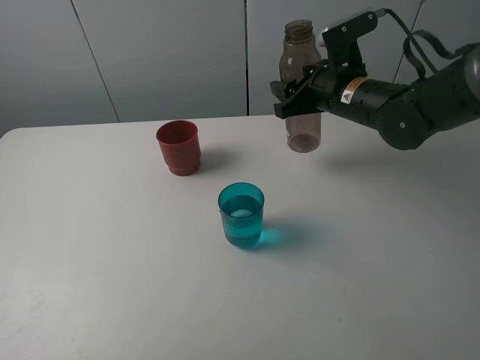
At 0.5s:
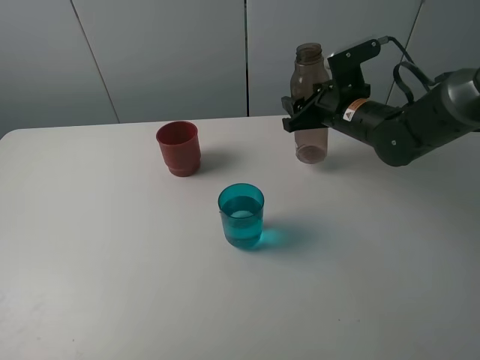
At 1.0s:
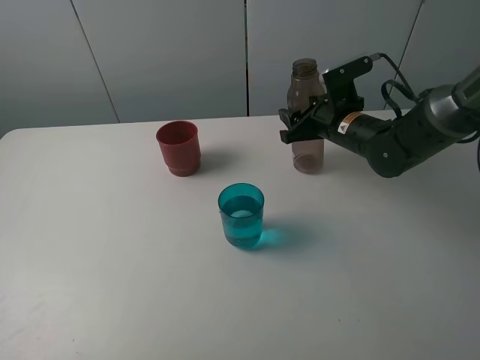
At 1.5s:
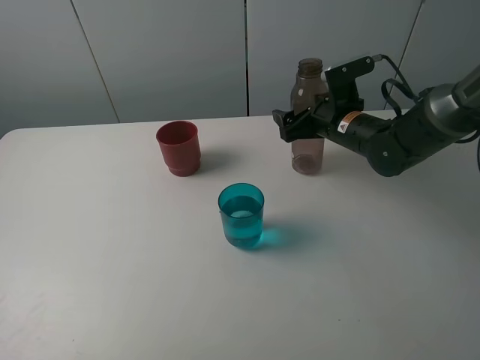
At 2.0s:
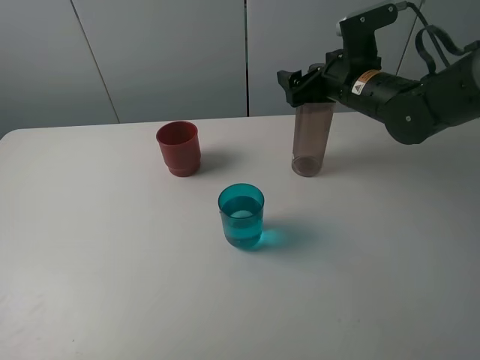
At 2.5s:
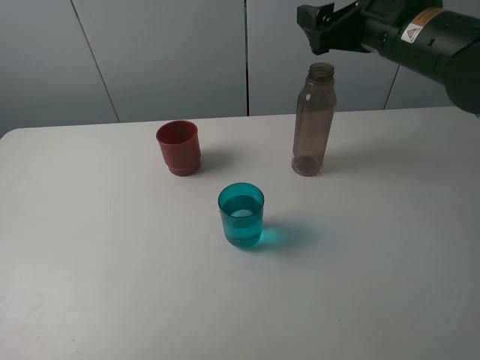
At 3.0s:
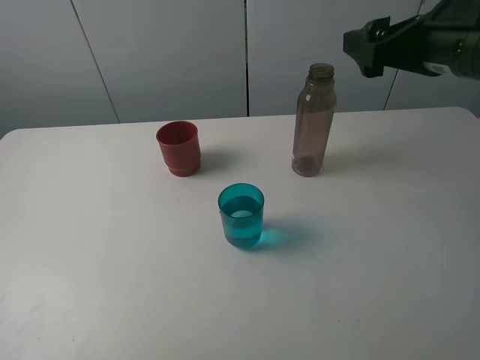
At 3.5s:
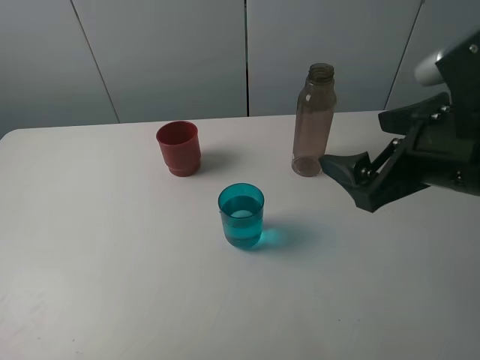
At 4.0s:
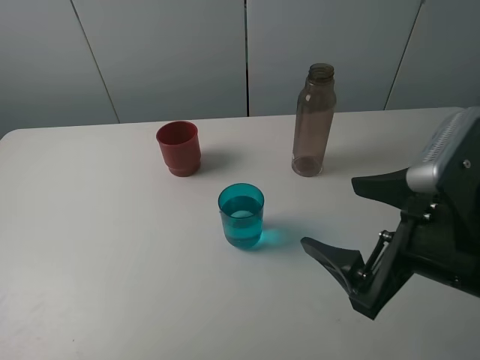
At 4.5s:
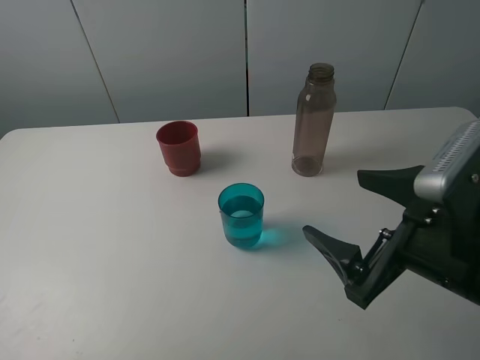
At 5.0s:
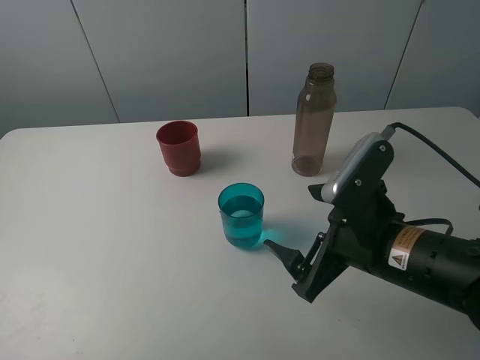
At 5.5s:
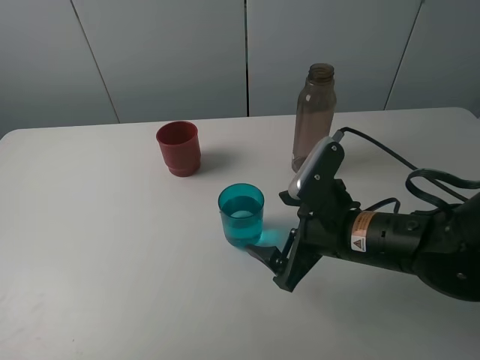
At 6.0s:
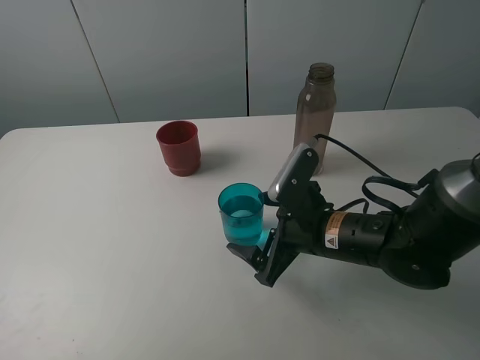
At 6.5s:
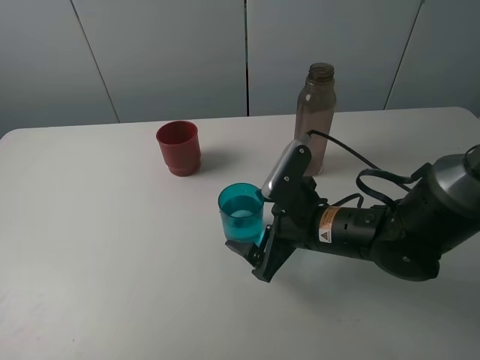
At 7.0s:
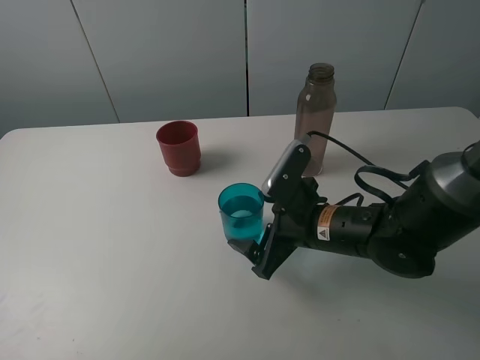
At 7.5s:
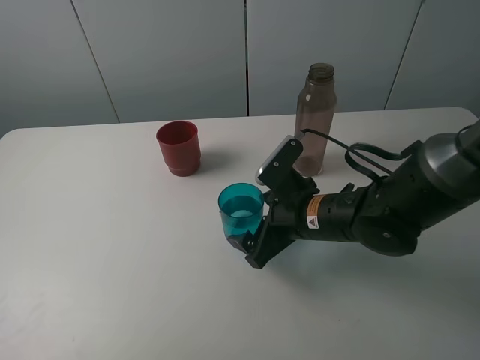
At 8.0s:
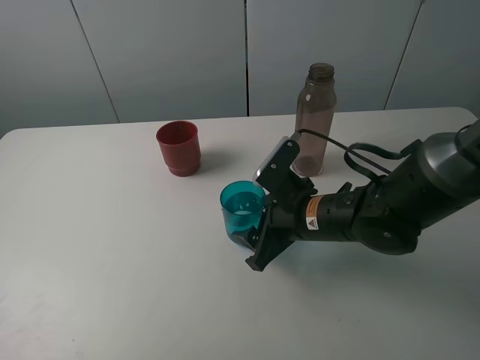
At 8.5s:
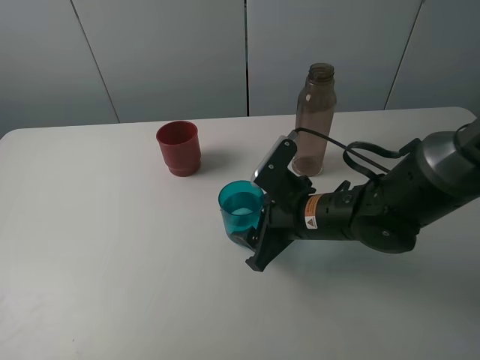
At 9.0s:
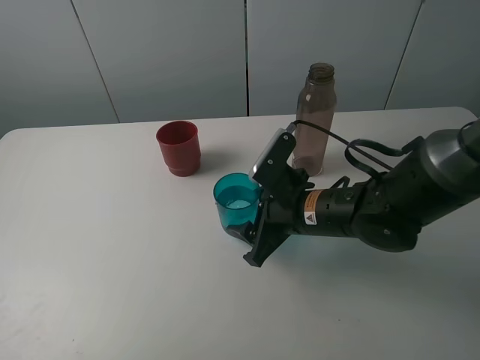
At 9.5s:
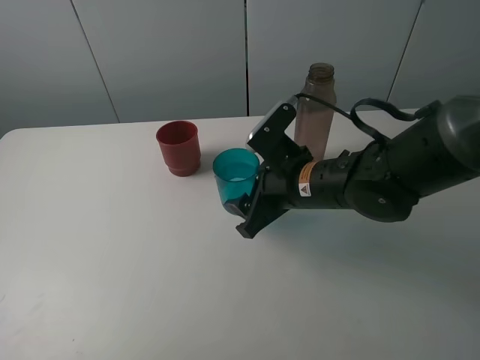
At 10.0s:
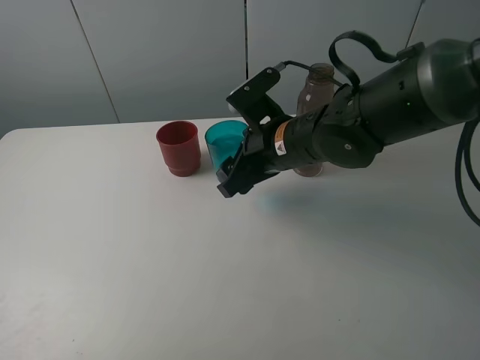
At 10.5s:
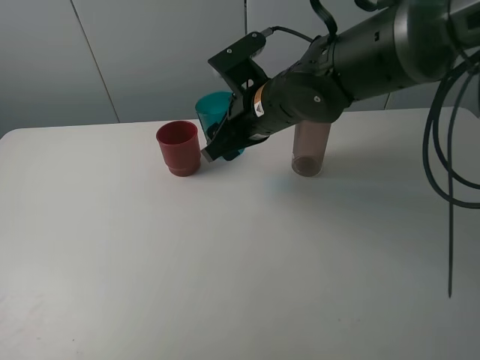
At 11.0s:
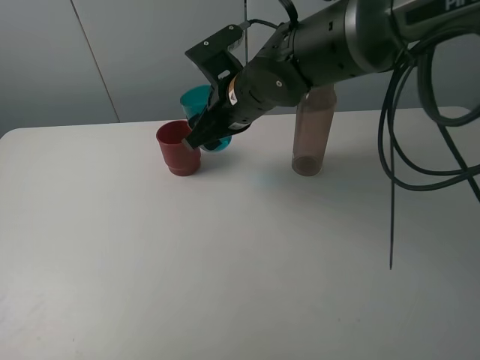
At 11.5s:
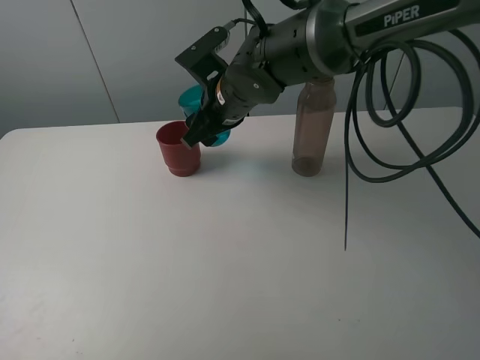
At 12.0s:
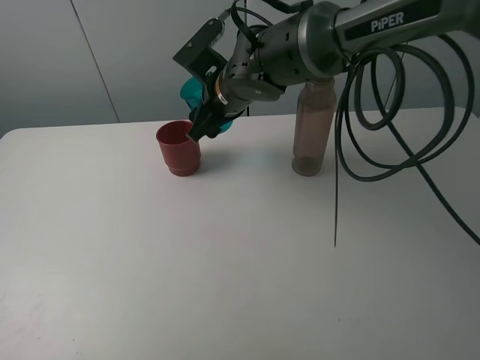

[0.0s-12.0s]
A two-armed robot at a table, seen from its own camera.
Task of the whole recording: pick up the bottle and pour water into the cup, then pick up the cup containing water and pour it into another cup.
Step, 2.0s to 8.0s: Grasp the blue cup with the right gripper.
0.0s to 2.0s: The right gripper moves some 5 cm downward and comes back, and opens.
2.0s to 4.0s: The right gripper moves backward, approximately 25 cm.
4.0s to 6.0s: The right gripper heads downward, forward and to the left, covering some 15 cm.
6.0s to 8.0s: The right gripper closes its fingers.
8.0s to 10.0s: The right gripper travels upward and forward by some 10 cm.
10.0s to 12.0s: The right gripper is displaced forward and to the left by roughly 10 cm.

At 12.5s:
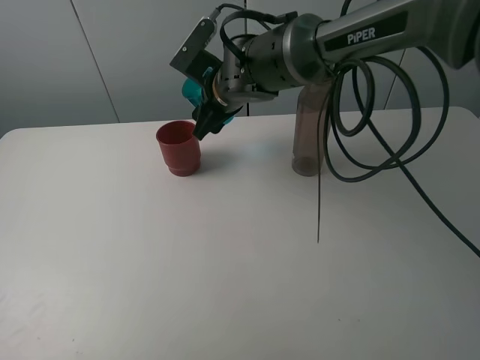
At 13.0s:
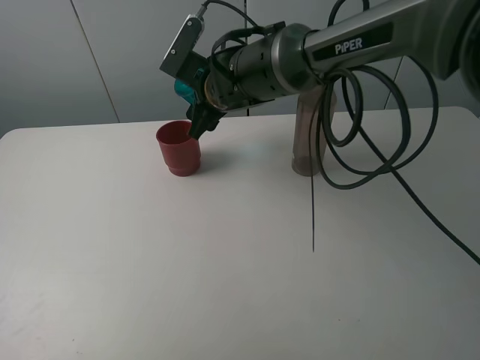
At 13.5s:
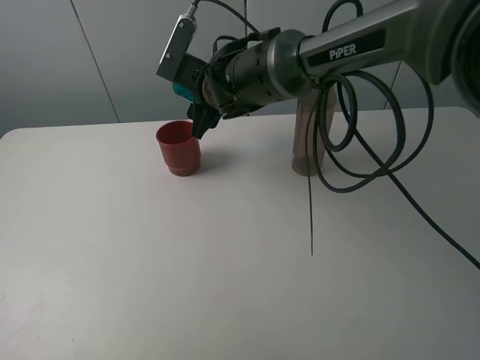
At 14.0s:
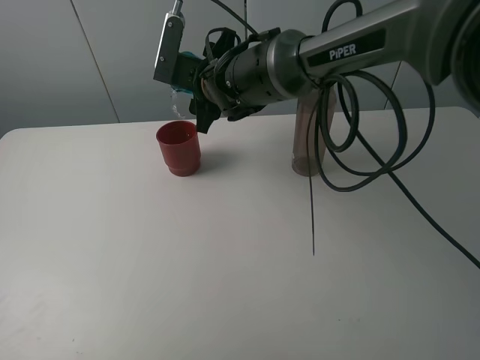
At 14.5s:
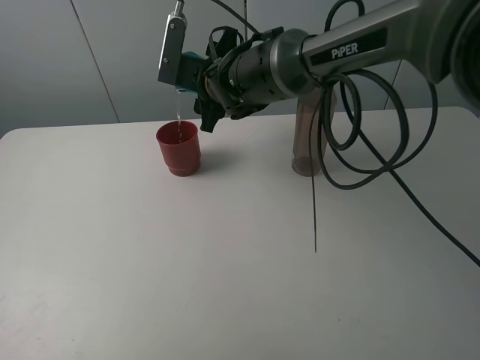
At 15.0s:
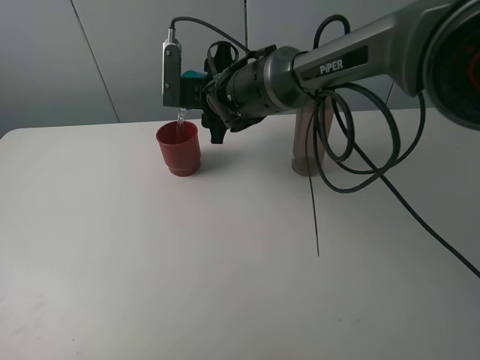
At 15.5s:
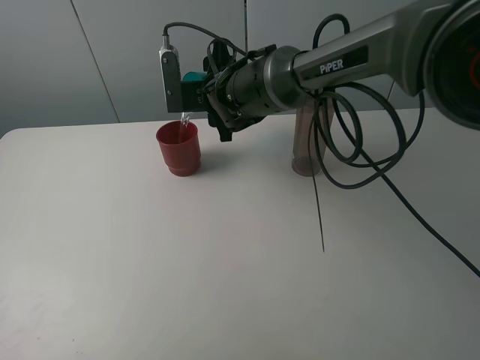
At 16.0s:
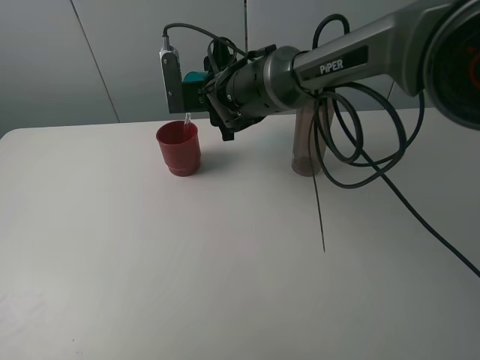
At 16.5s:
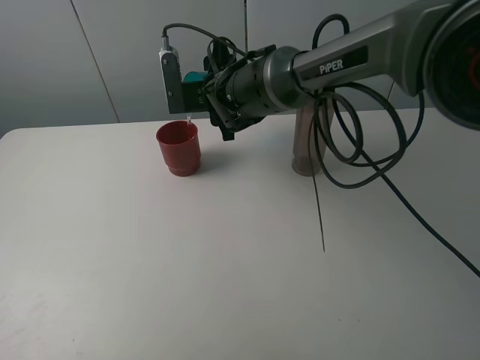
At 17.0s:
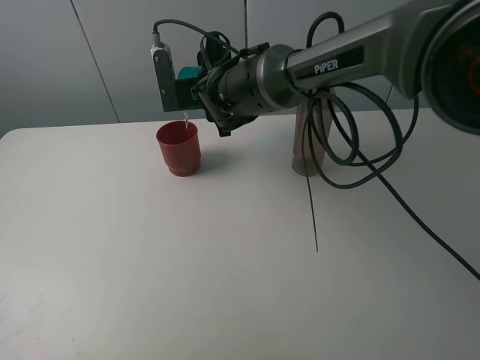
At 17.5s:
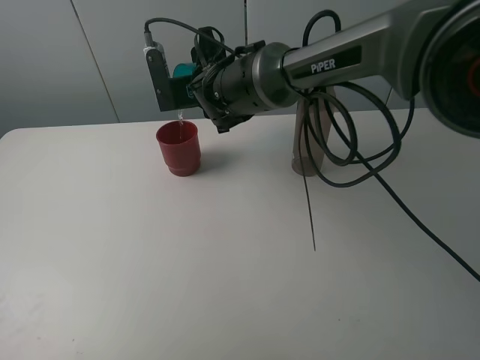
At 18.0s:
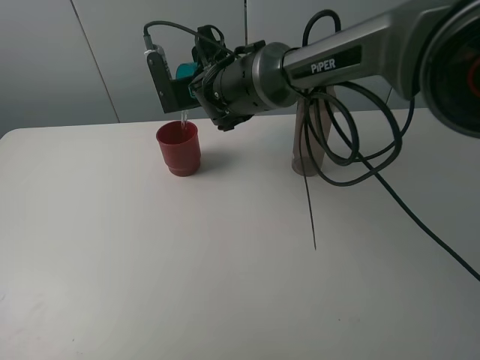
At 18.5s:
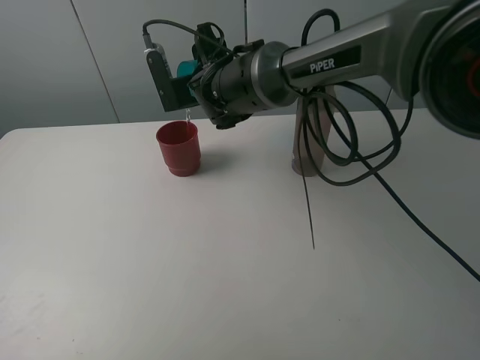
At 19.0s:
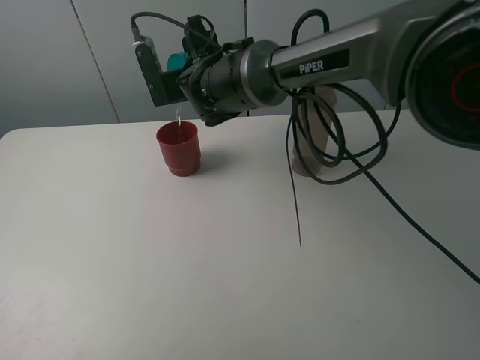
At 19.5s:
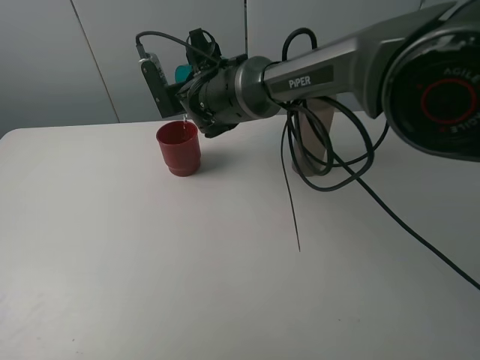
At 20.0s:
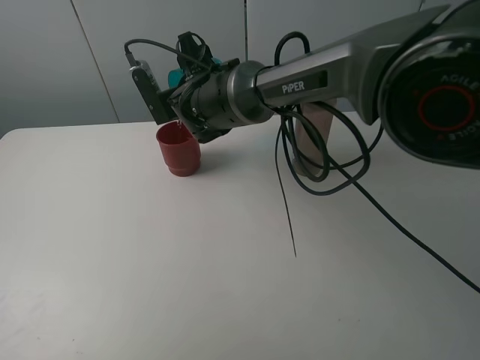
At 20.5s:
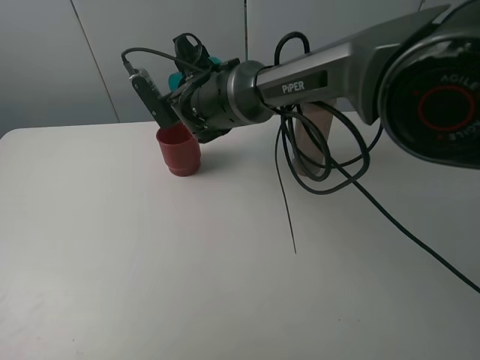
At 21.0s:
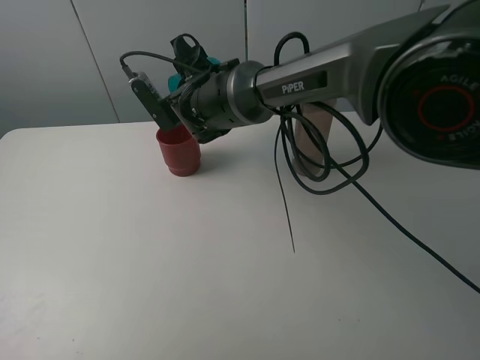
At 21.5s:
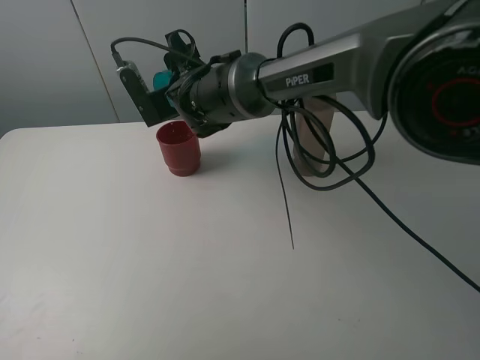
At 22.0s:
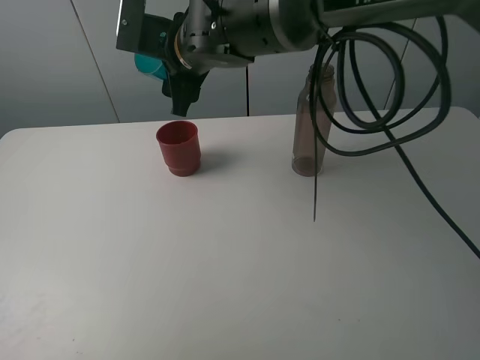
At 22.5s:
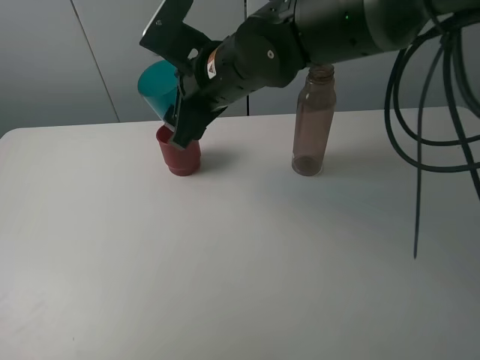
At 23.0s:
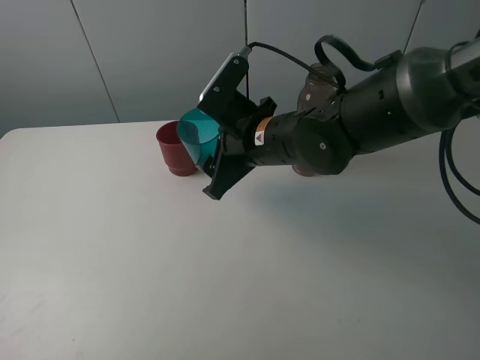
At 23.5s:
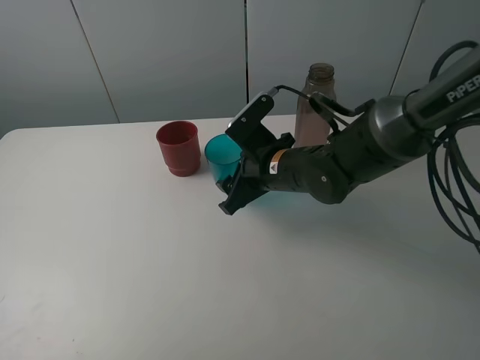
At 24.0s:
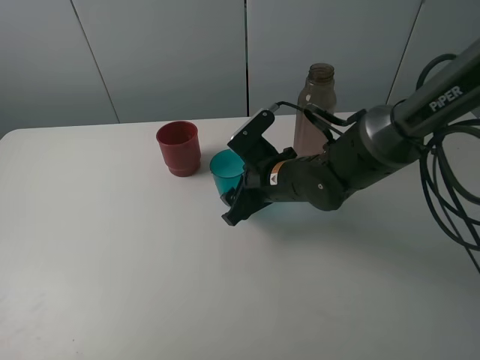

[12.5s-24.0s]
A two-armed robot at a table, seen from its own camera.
Task of the whole recording: pick up the bottle and pour water into the cup, then pick up the cup containing water and pour it into another cup.
Step, 12.5s to 21.5s: Pour water from blue cup to red cup with the right gripper.
16.5s to 20.0s: The grippers stay close to where they were, moving slightly.
20.0s to 22.0s: The right gripper moves upward, some 10 cm.
22.0s to 24.0s: The right gripper goes roughly 20 cm downward, to the right and backward.

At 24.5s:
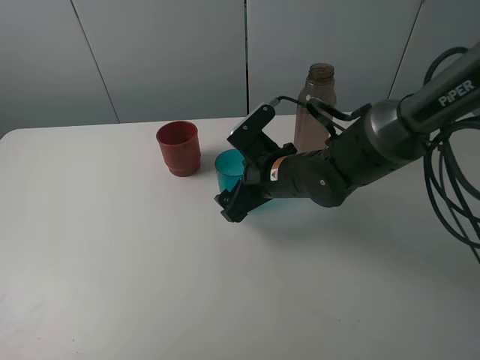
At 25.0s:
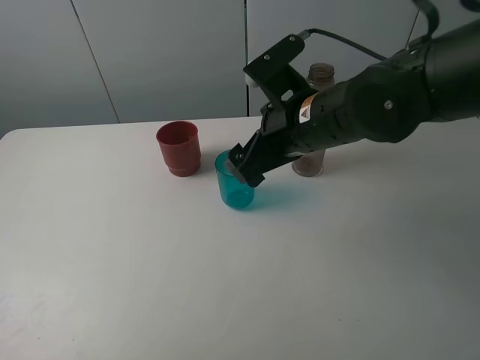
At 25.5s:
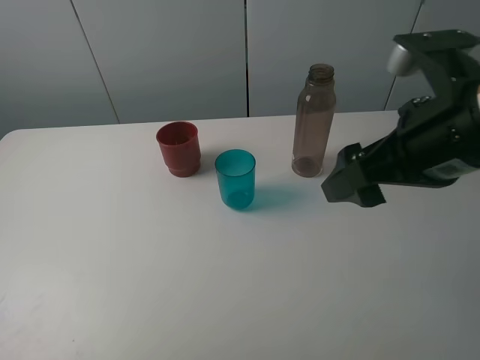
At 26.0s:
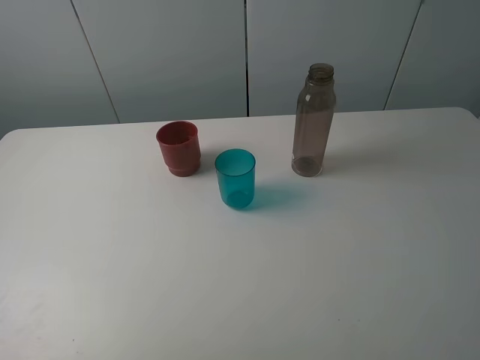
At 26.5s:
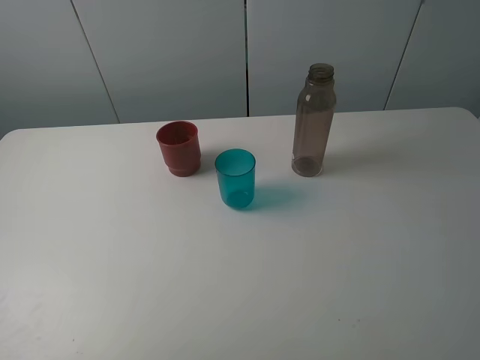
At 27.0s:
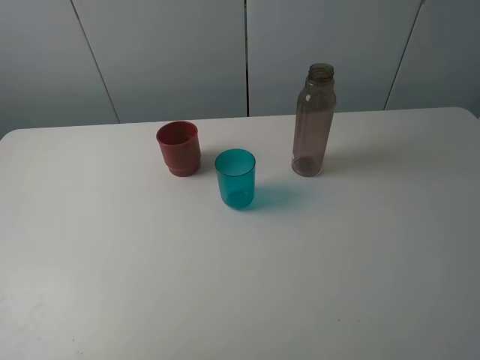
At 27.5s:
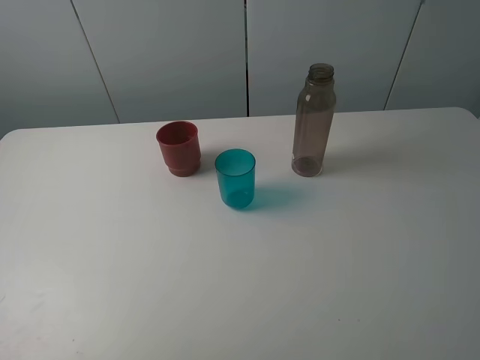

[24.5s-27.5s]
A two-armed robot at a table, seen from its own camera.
Task of the whole recording: pick up the bottle and pour water into the cup, then pick up the cup containing water and pour it into another cup.
24.5s to 26.0s: The right gripper travels backward, to the right and upward by some 40 cm.
